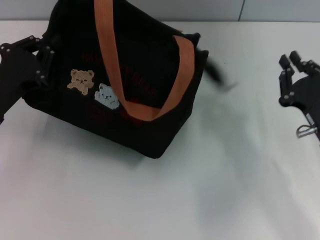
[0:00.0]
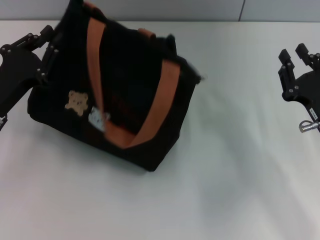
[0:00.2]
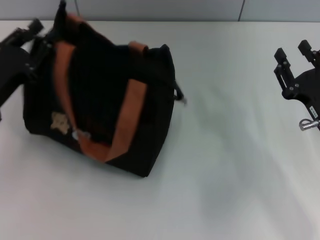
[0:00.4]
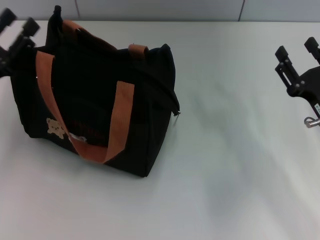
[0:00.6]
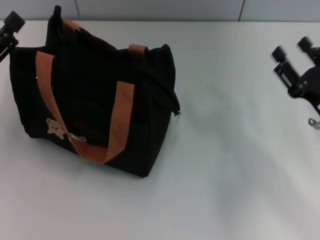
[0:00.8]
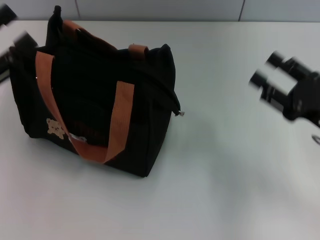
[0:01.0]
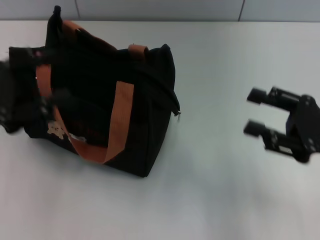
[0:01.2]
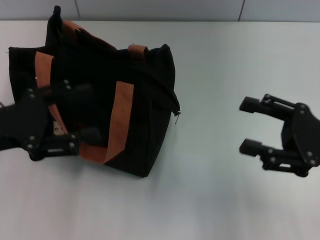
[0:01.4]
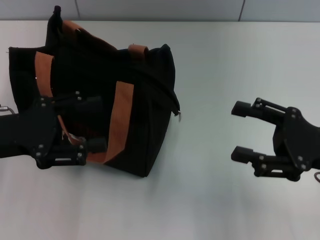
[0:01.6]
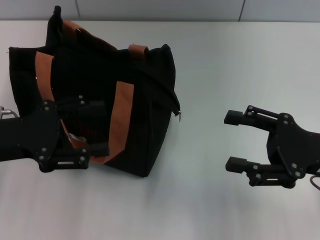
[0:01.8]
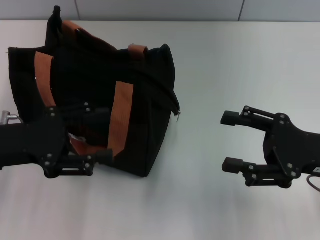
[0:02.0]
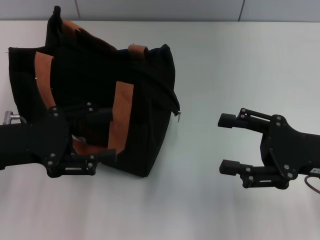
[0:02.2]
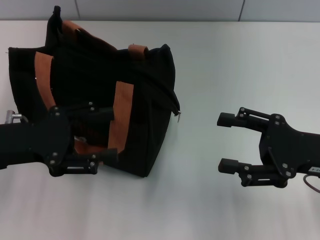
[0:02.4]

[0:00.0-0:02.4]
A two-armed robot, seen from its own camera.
Step, 0:00.0 to 0:00.4: Grab the bag with your left hand.
0:00.0 to 0:01.2: The two grippers go about 5 cm upward. The right gripper opens up; the left gripper opens.
0:01.2 to 0:02.4: The grippers make only small movements.
